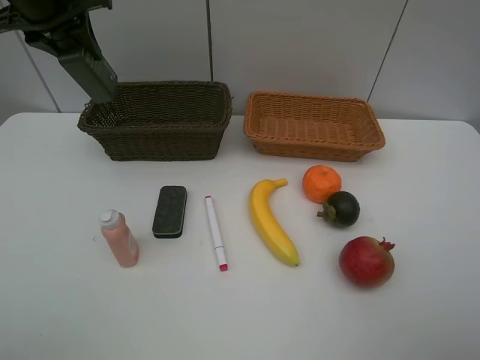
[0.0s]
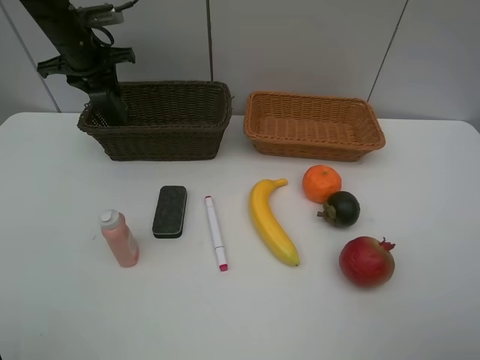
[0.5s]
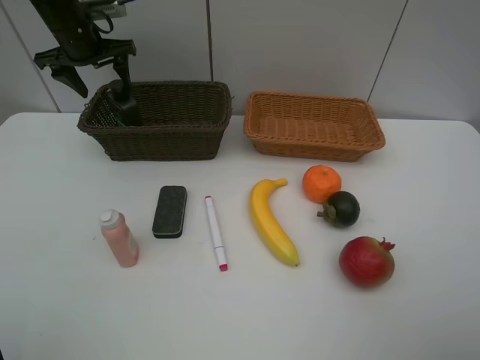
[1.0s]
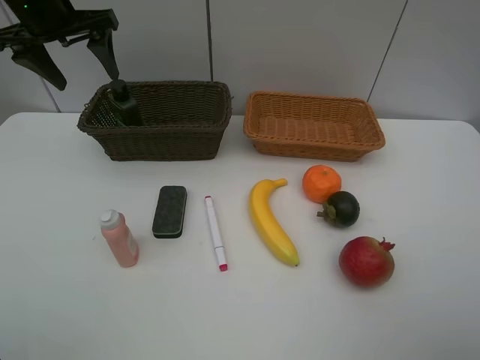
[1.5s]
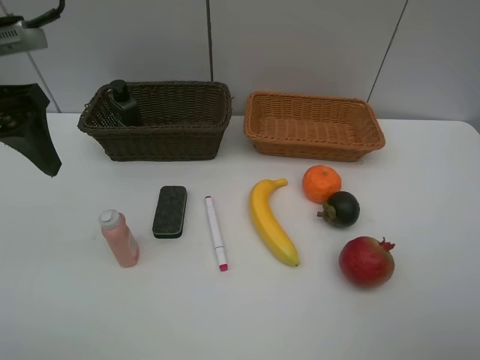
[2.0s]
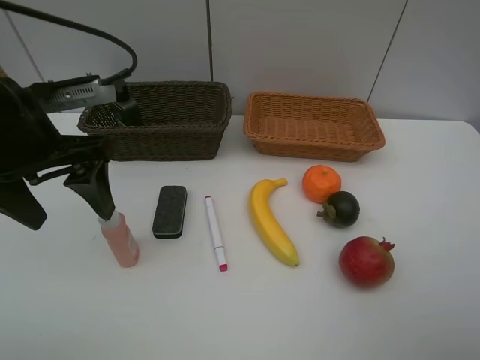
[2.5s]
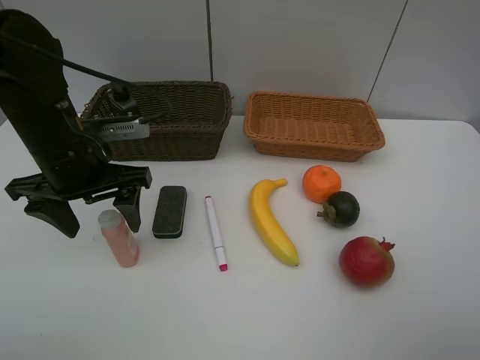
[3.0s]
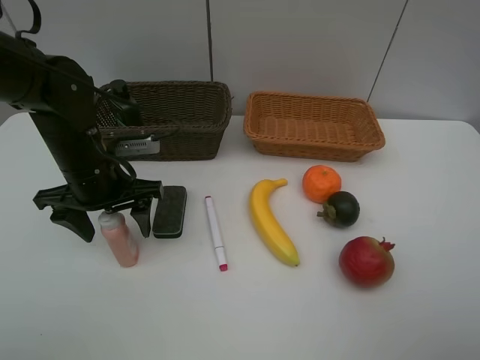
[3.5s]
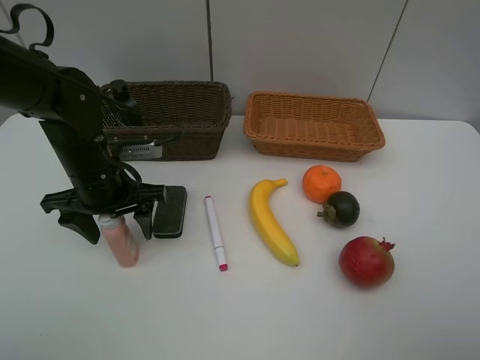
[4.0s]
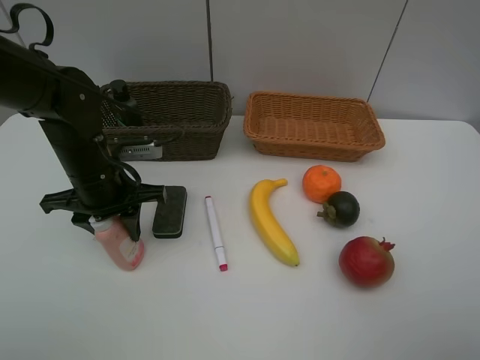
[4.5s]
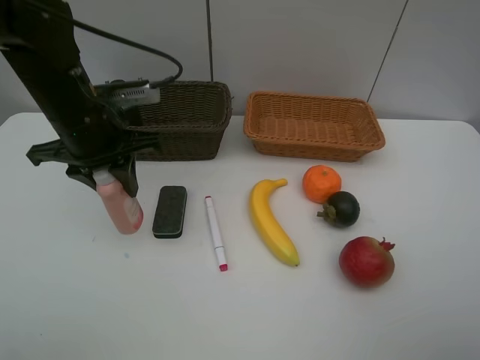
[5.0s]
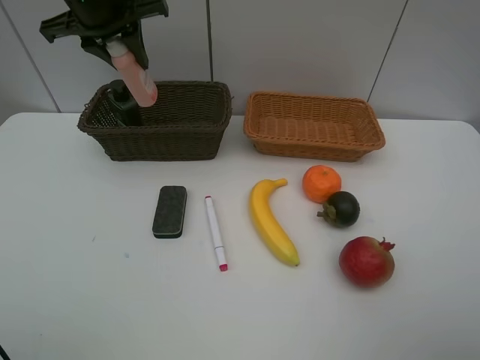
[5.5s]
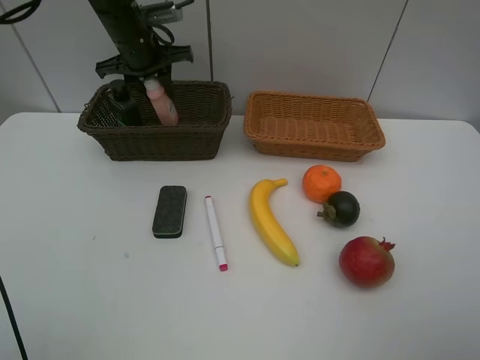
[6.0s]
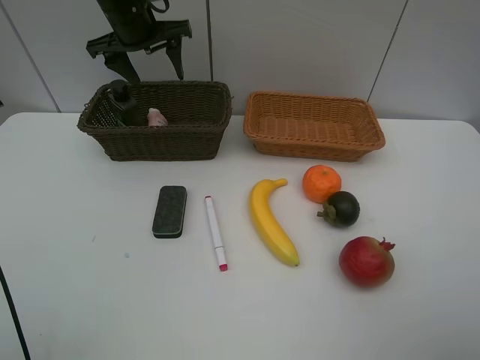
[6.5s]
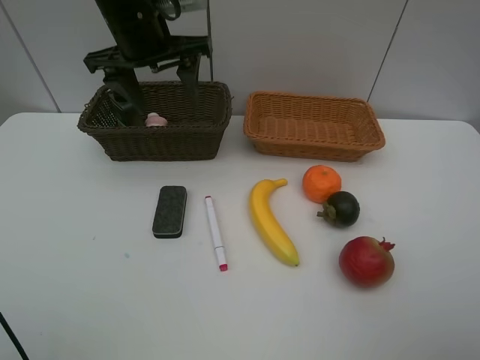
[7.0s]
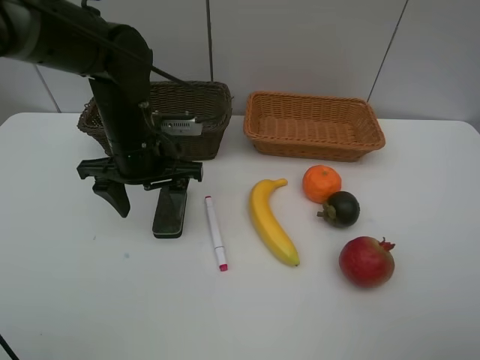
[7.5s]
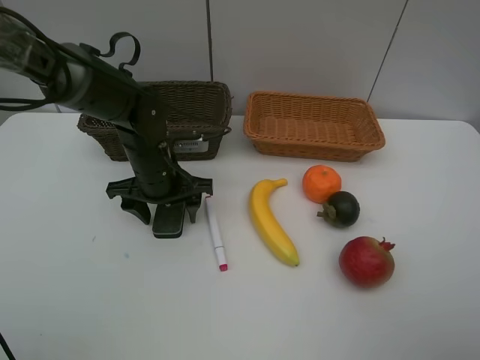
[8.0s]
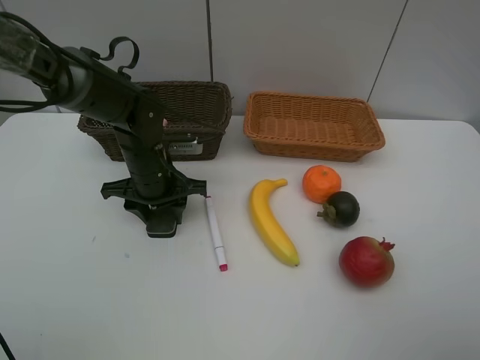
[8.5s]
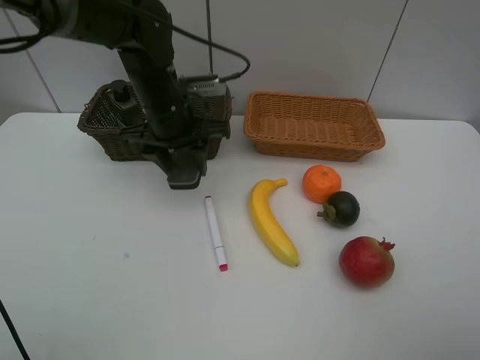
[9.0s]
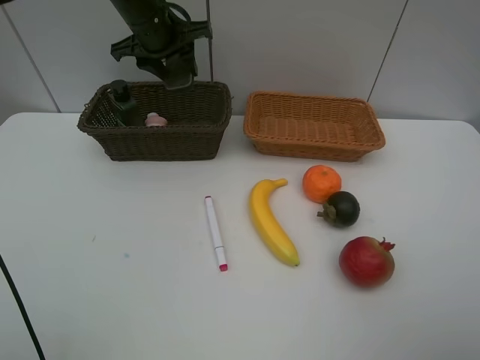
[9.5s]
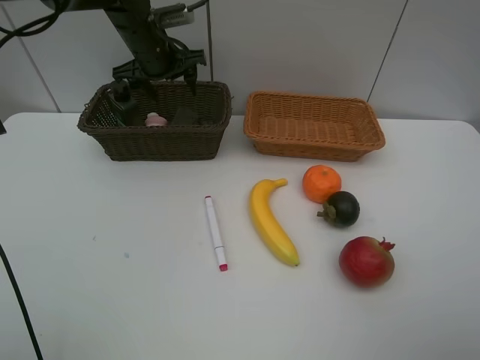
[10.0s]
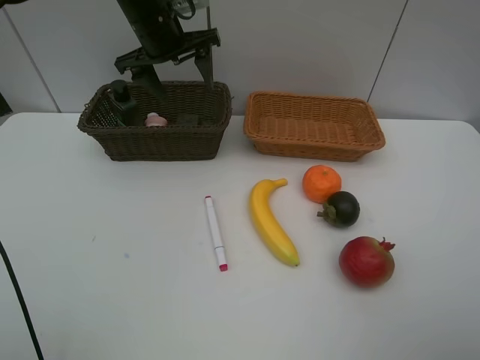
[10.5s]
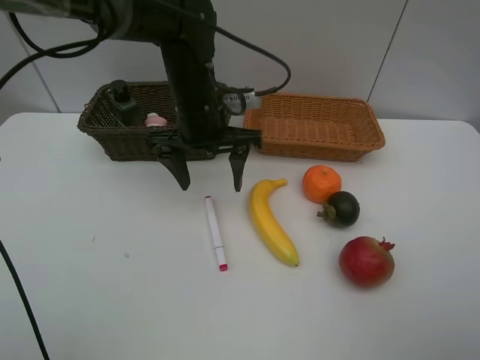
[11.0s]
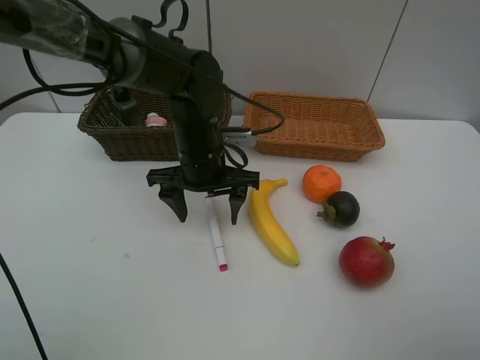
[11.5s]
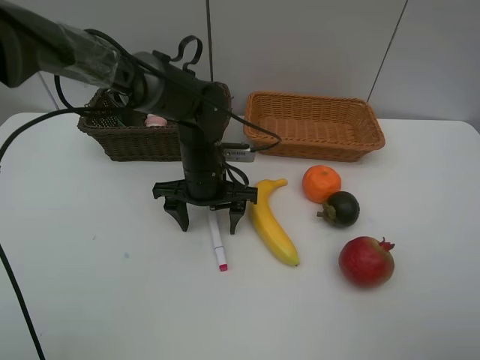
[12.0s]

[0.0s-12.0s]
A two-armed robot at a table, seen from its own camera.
Task of the whole recording: Place multiple objects separately in different baskets.
Step, 0.0s to 1.0s: Place the hard facial cleanser in the dark basket with left gripper.
Step, 1.5s to 4.5s: Pick up the laundry detergent with left gripper.
Step, 5.0s to 6.0s: Place the laundry detergent in the dark basket with left gripper.
Step, 6.5s to 8.5s: Pick up blackboard eraser with left gripper.
Step, 9.0s to 10.0s: Place the blackboard eraser in the dark basket with left gripper.
0.0s to 2.0s: The left gripper moves backward, roughly 20 cm, and opens up.
2.0s to 4.0s: The left gripper heads downward and to the right, covering roughly 20 cm.
4.0s to 6.0s: The left gripper shifts about 20 cm forward and upward, and closes up.
6.0s to 8.0s: The left gripper shifts approximately 20 cm backward and downward, and opens up.
8.0s to 10.0s: The left gripper travels forward and upward by some 20 cm, and closes and opens again.
10.0s to 12.0s: The left gripper is displaced backward, downward and to the right by approximately 20 cm.

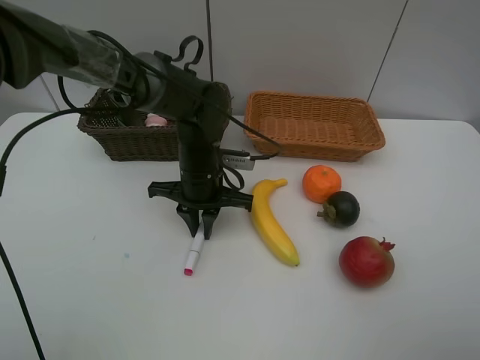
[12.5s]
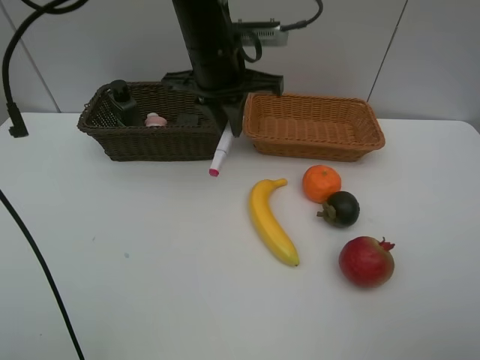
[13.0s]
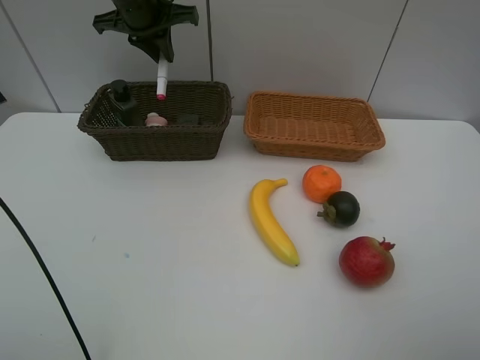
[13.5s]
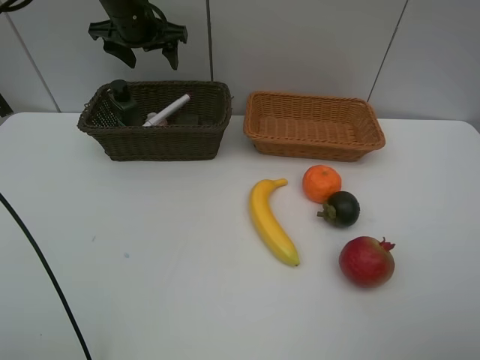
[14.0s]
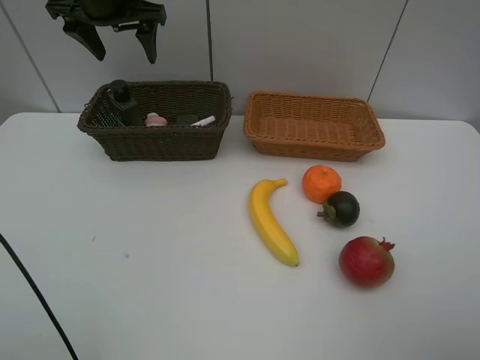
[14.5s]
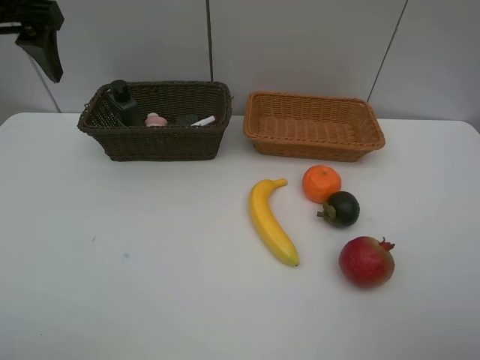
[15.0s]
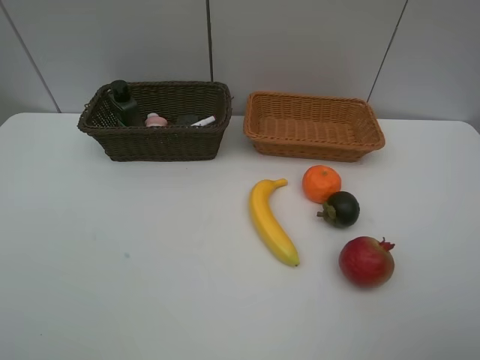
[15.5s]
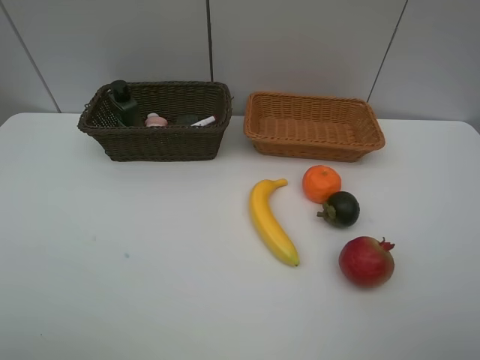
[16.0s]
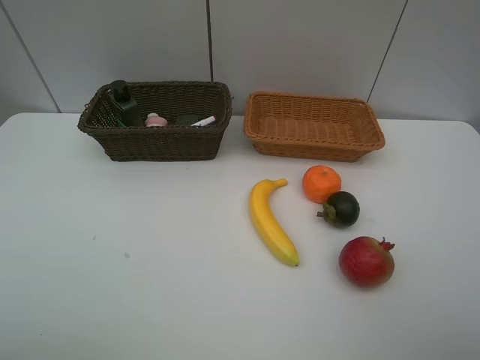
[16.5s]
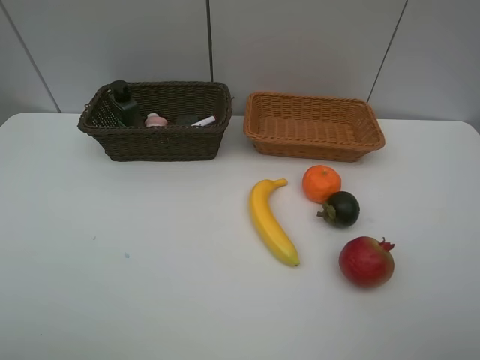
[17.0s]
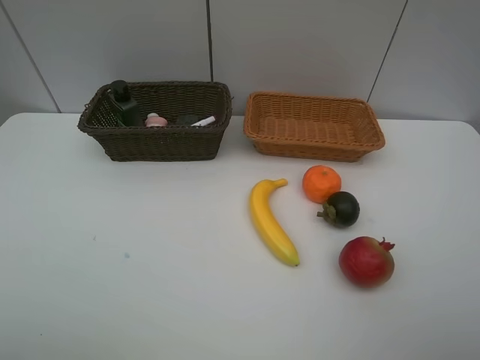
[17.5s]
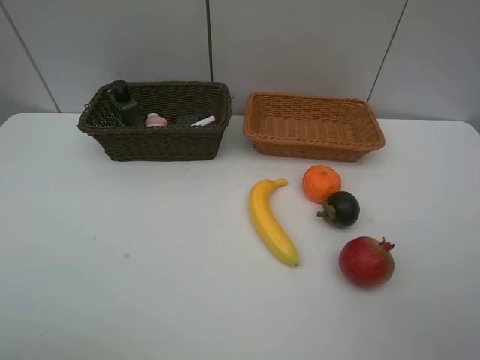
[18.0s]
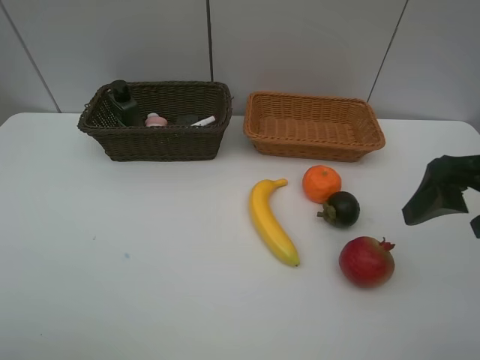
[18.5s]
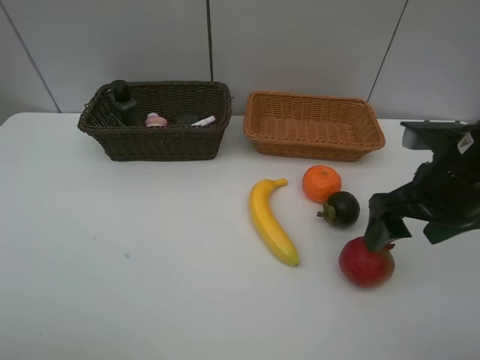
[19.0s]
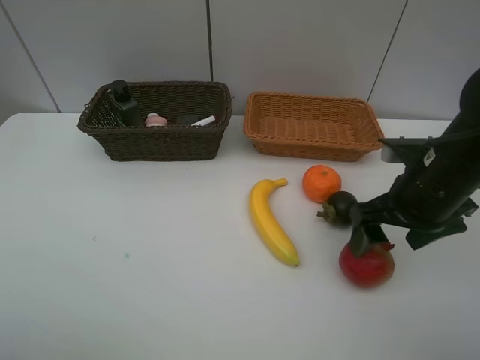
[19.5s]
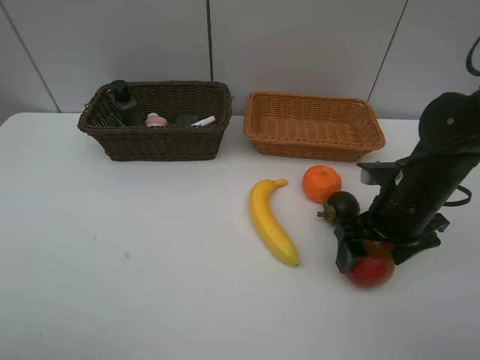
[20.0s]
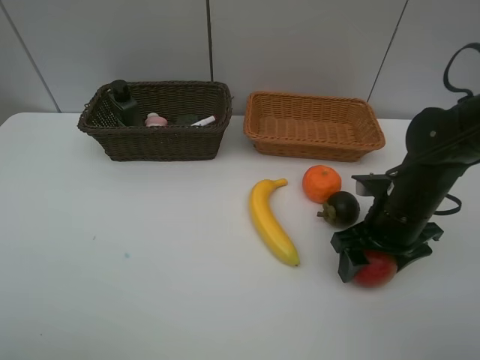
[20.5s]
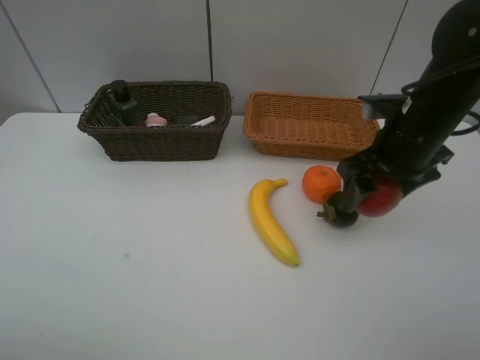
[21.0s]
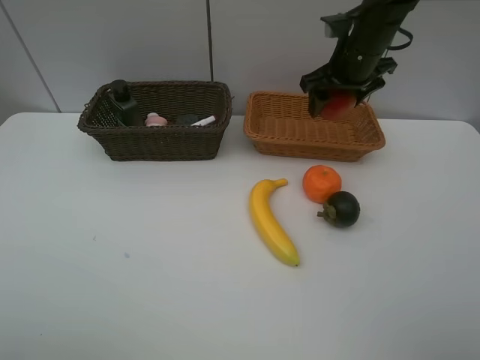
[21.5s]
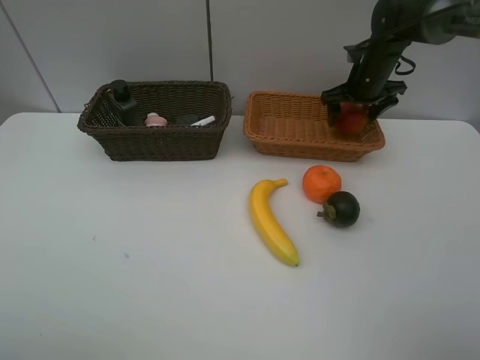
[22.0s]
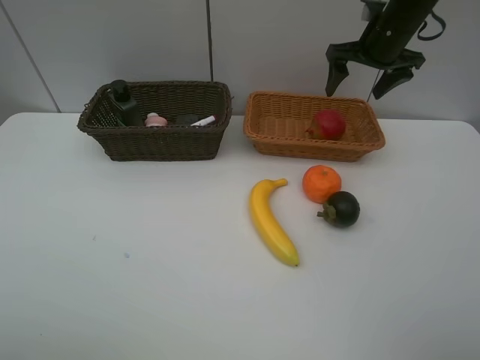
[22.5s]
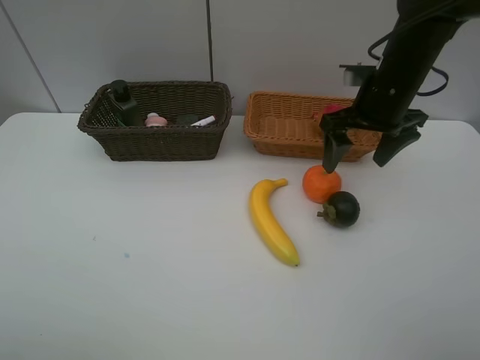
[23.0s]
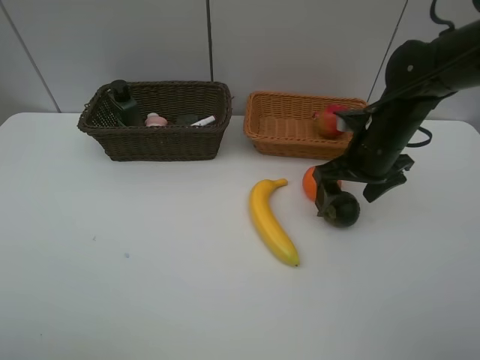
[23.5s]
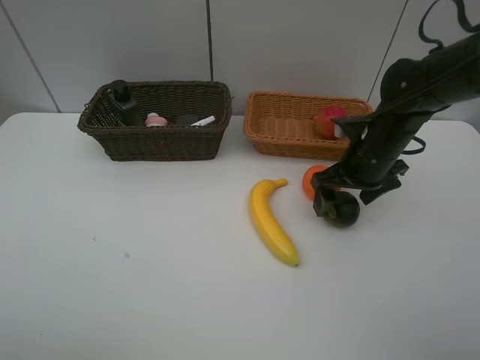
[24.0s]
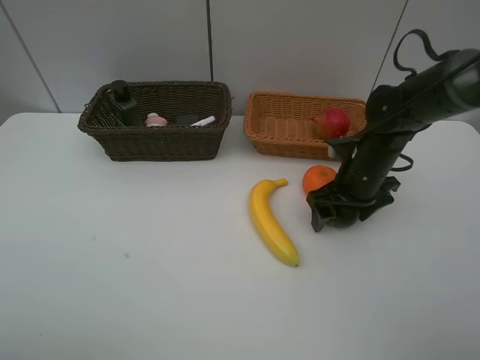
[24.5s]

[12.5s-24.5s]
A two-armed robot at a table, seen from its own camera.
Task of the whole recording: Place multiple objects separately in different baskets.
Step, 13.0s to 13.5s: Place the red marker in the dark basket with left gripper.
Step, 14.0s to 20.5s: Pick up the pomegranate with right gripper.
Step, 21.0s to 22.0s: Place the pomegranate in the light basket with right gripper.
12.5s to 14.5s: The left gripper is displaced upward, to the left and forward by some 30 cm, and opens up.
14.5s to 16.5s: The left gripper goes some 50 cm backward.
16.5s to 18.5s: The right gripper heads forward, covering roughly 20 cm.
18.5s to 20.5s: The right gripper shifts about 15 cm downward and forward.
20.5s to 22.5s: The right gripper heads forward and upward, covering about 25 cm.
22.5s to 24.5s: The right gripper moves downward and backward, about 20 cm.

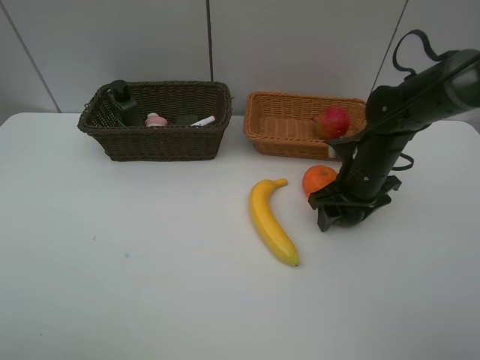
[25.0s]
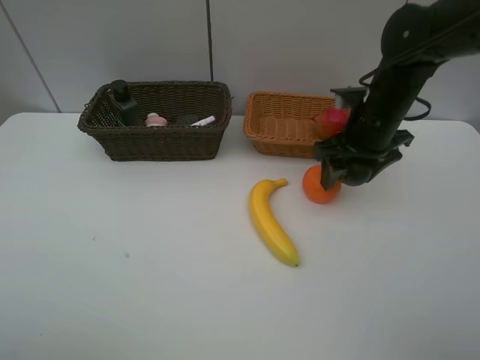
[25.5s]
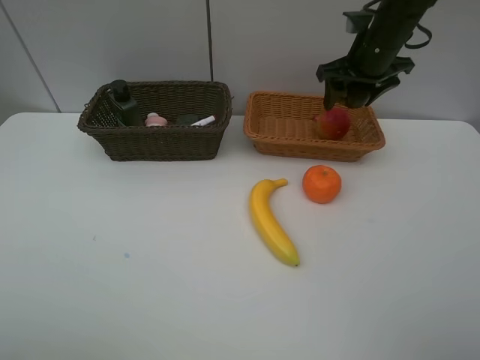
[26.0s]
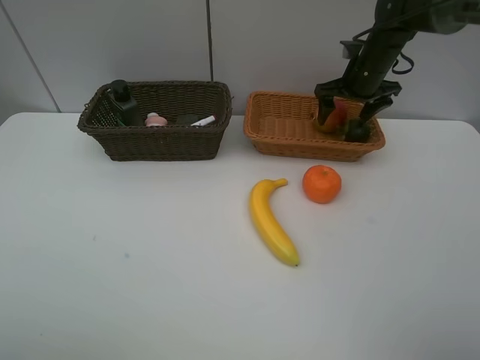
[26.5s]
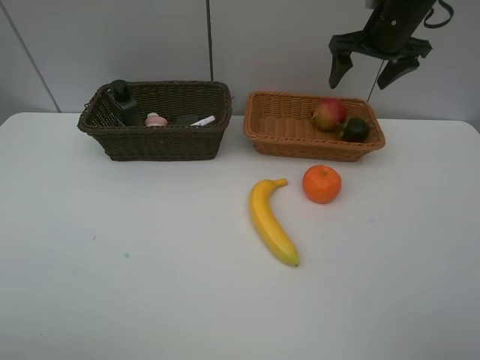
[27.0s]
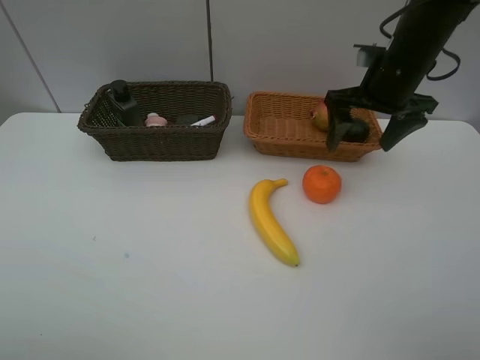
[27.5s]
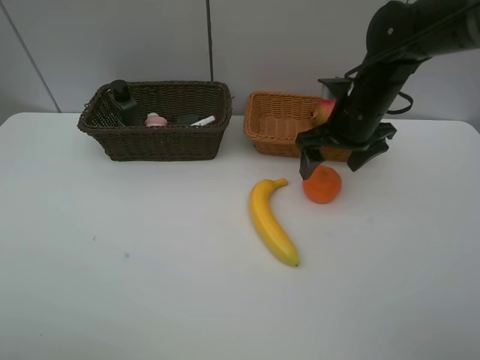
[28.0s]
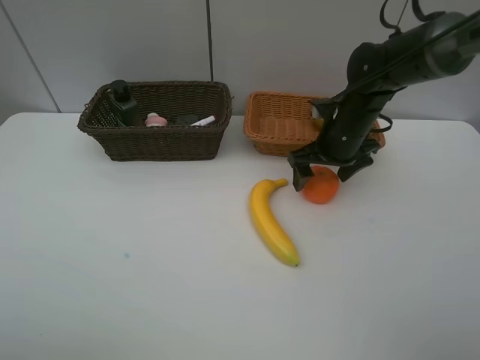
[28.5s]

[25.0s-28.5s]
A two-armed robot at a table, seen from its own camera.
Task of the whole recording: Place multiple objects separately in different baskets.
Step, 25.5s to 26.5s: Place the mangosteen in the light basket with right gripper.
25.0s to 27.0s: The right gripper swings up and down, some 20 cm each way, with 2 reversals.
27.0s to 28.5s: The right gripper heads downward, backward and to the left, covering about 15 cm.
